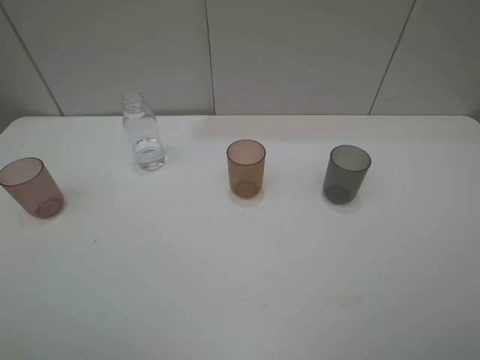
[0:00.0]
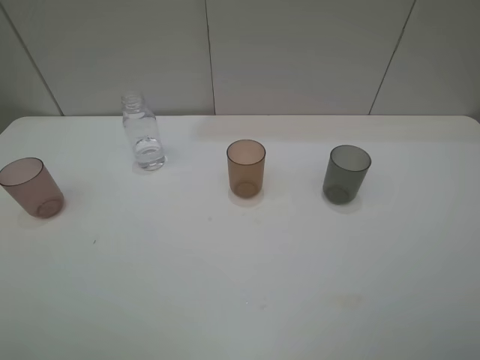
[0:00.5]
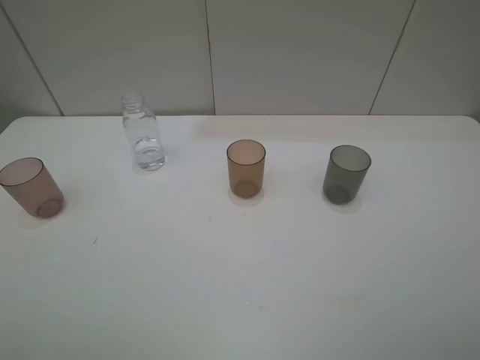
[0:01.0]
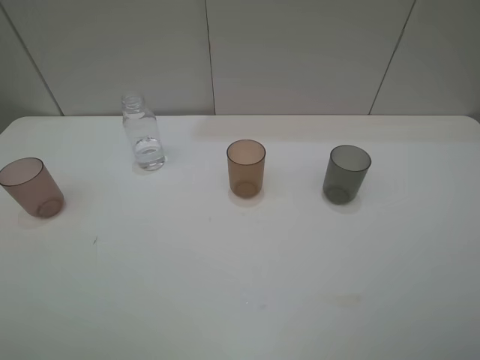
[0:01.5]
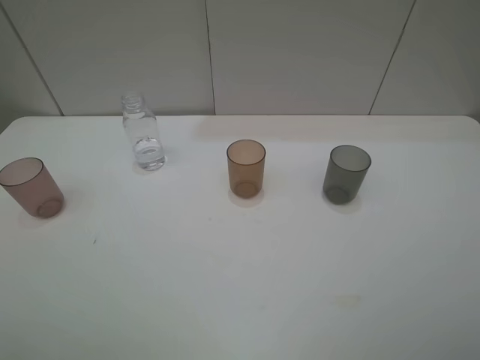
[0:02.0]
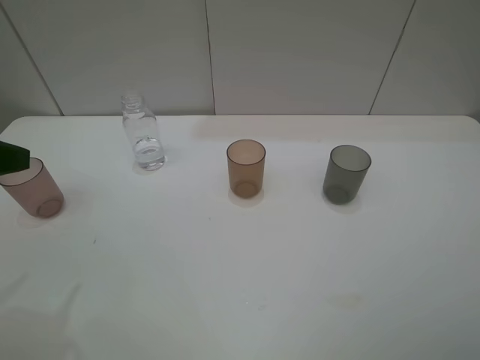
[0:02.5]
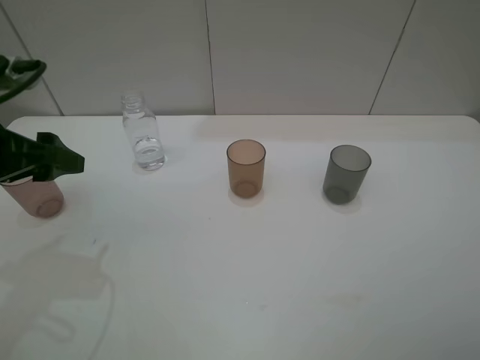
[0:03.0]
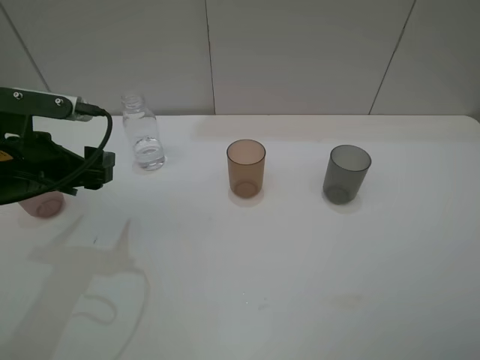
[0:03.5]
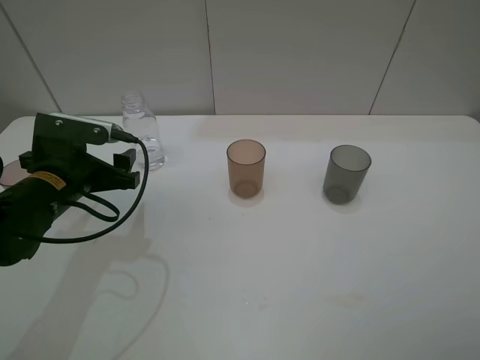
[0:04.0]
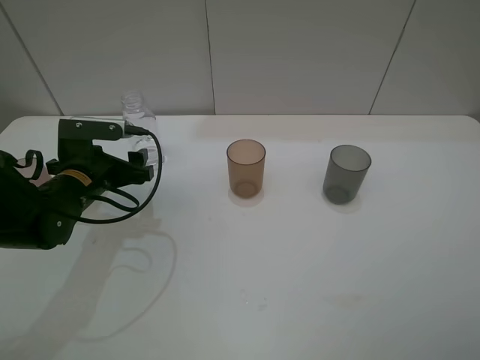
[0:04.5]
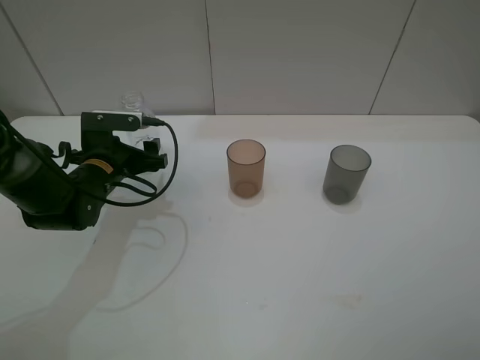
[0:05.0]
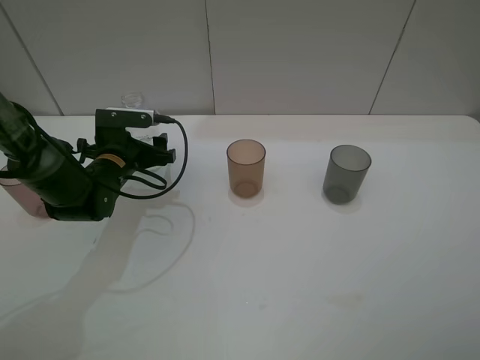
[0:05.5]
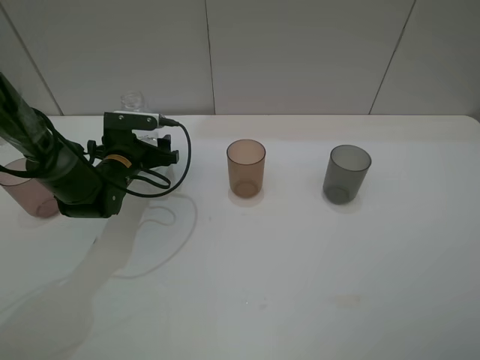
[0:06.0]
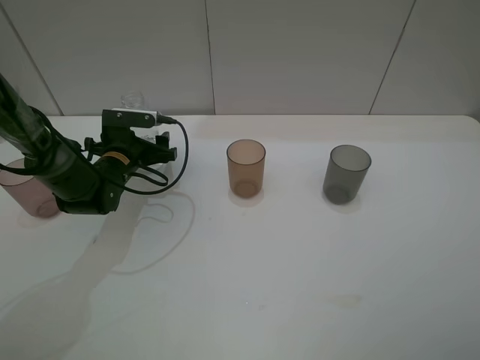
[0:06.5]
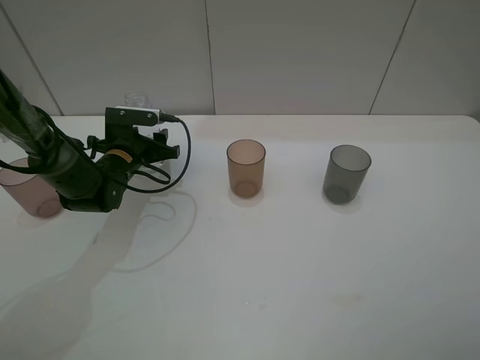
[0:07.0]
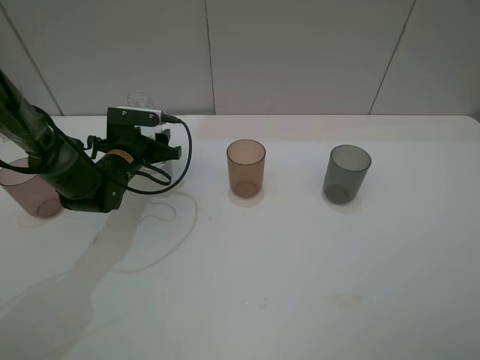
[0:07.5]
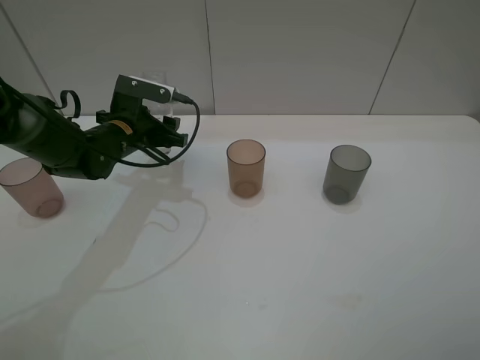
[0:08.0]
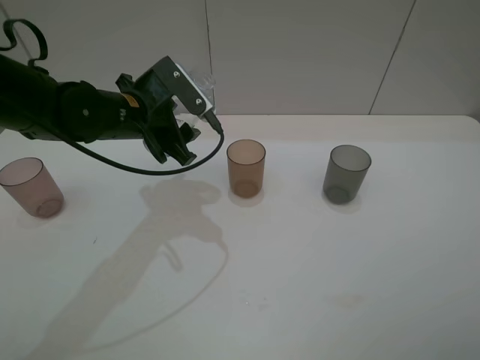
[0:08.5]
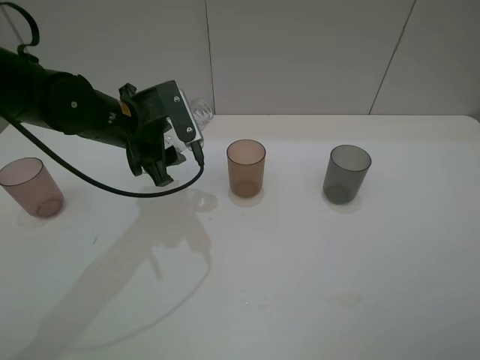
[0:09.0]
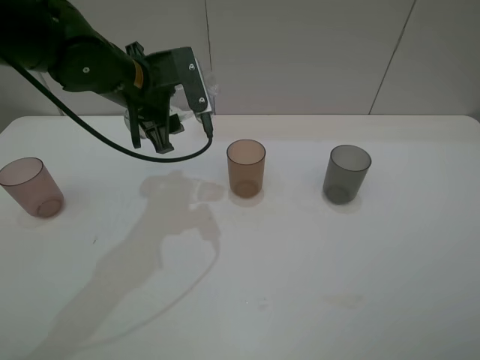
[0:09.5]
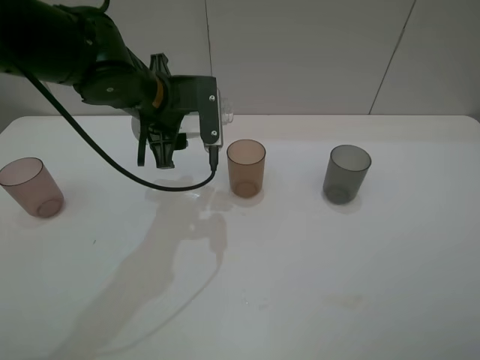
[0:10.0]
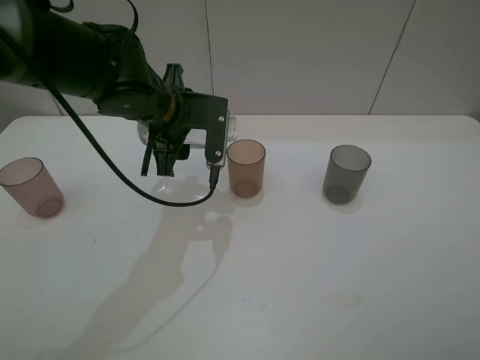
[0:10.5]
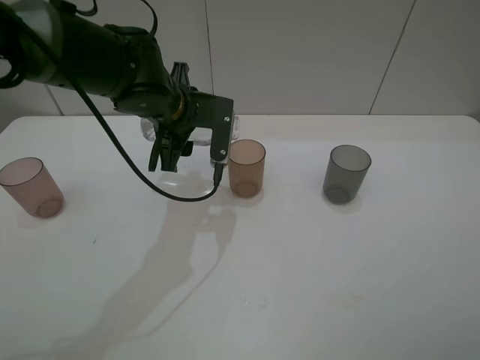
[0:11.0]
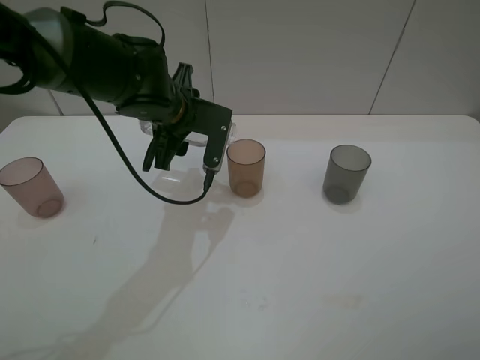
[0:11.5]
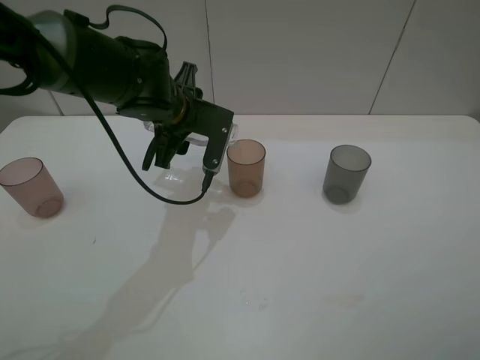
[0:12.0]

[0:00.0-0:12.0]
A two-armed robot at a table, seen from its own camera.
Task of the whole recording: pick up the bottle filled with water and pour water into the middle cup of the three cups.
Step, 0:00.0 to 0:07.0: Grasp the transparent bottle with the left gripper.
0:02.0 to 0:04.0: The left gripper moves forward and downward, roughly 30 cm.
0:04.0 to 0:06.0: The left gripper is displaced forward and downward by about 15 cm.
0:06.0 to 0:08.0: The left gripper goes approximately 5 cm upward, and closes its fingers.
0:08.0 to 0:10.0: The left gripper shifts some 10 cm upward and to the right.

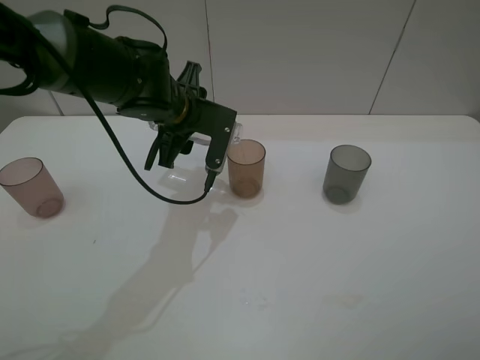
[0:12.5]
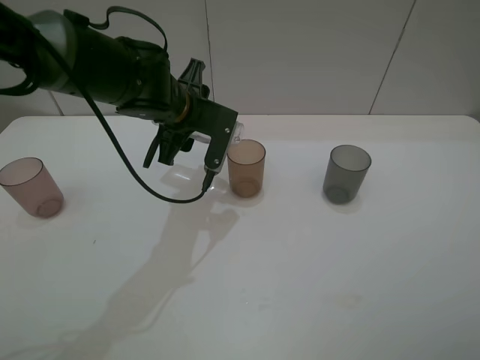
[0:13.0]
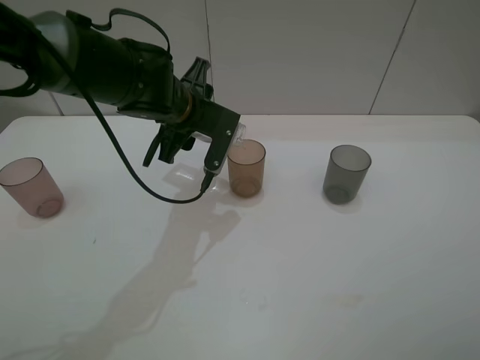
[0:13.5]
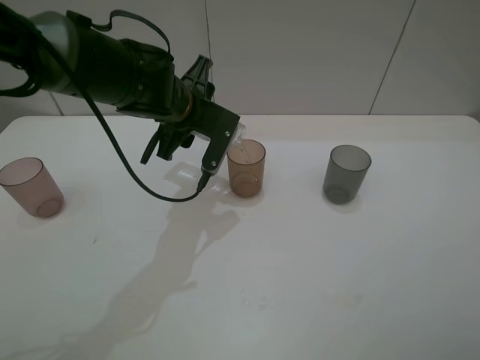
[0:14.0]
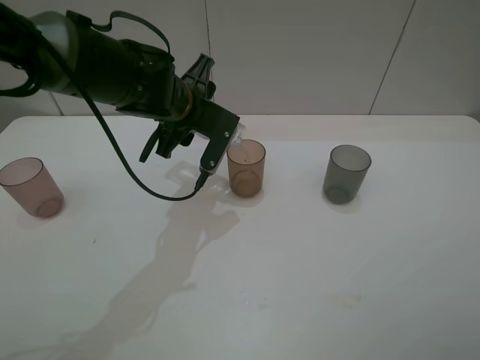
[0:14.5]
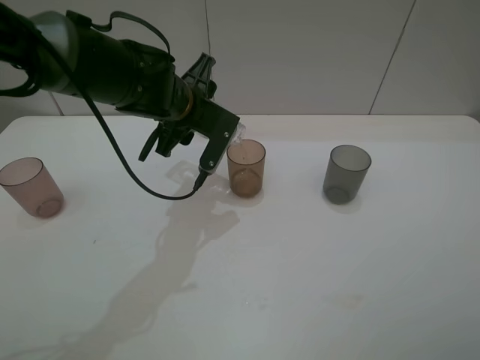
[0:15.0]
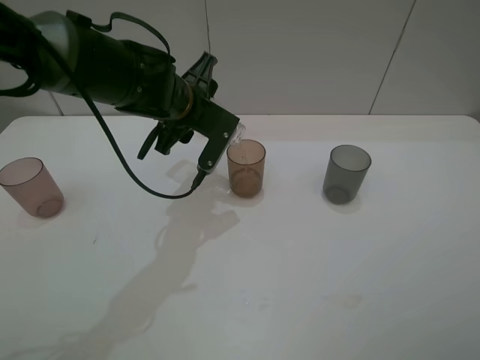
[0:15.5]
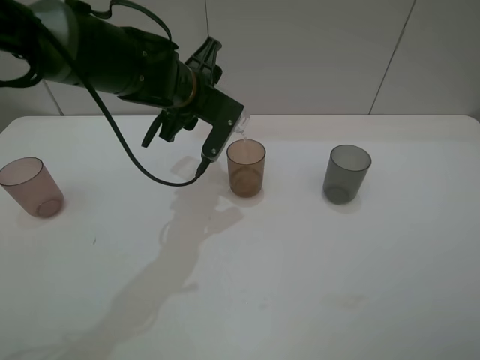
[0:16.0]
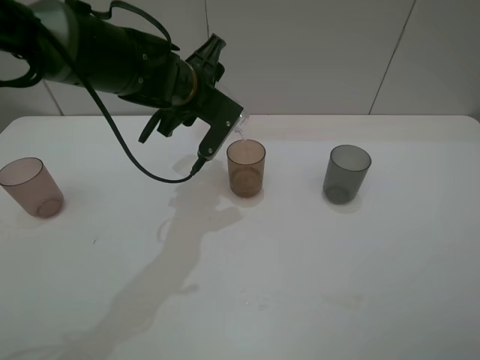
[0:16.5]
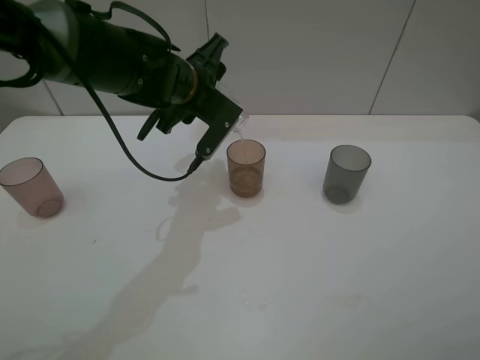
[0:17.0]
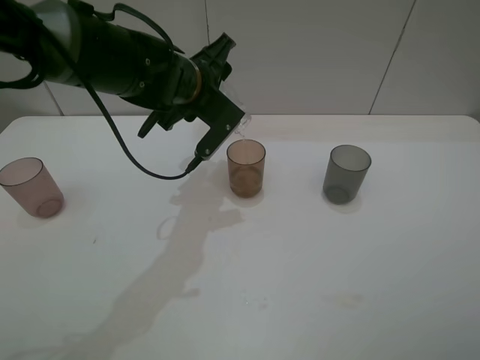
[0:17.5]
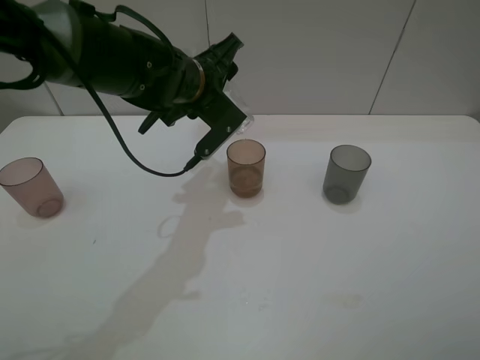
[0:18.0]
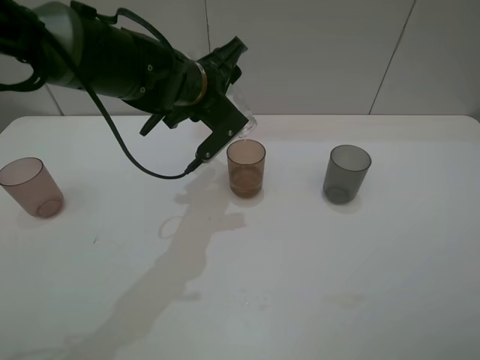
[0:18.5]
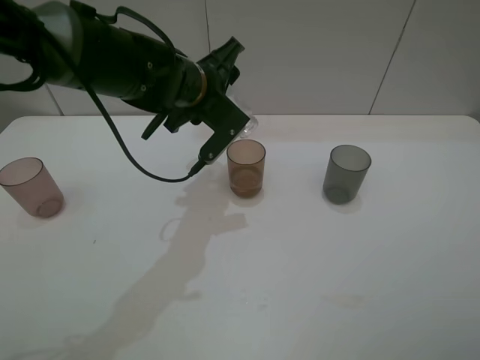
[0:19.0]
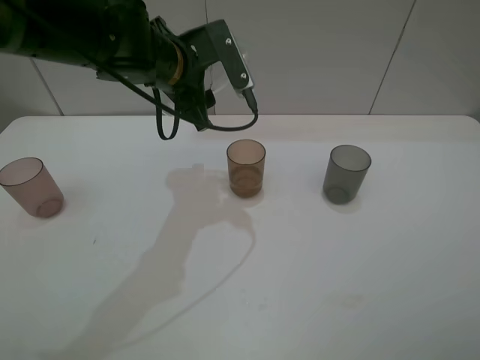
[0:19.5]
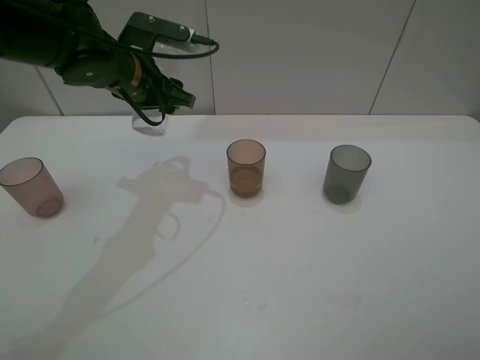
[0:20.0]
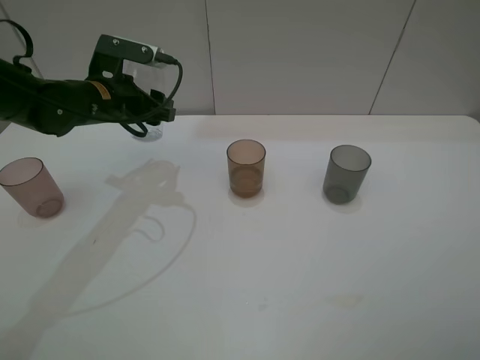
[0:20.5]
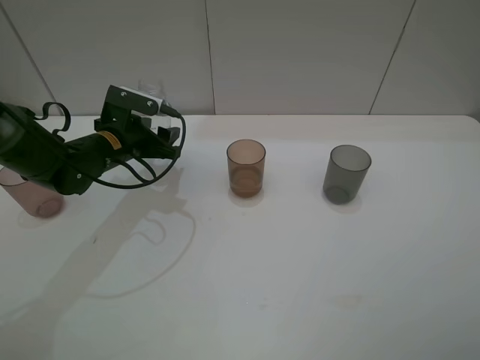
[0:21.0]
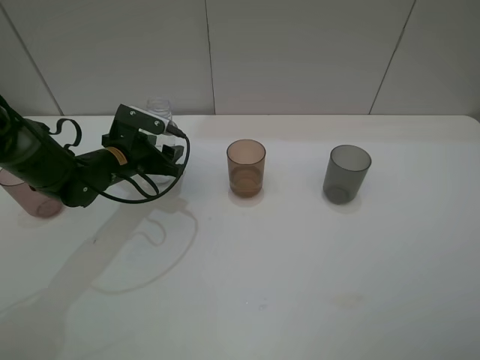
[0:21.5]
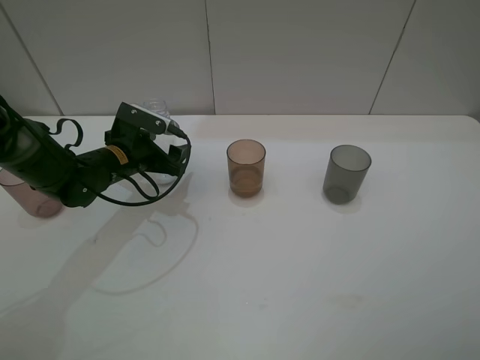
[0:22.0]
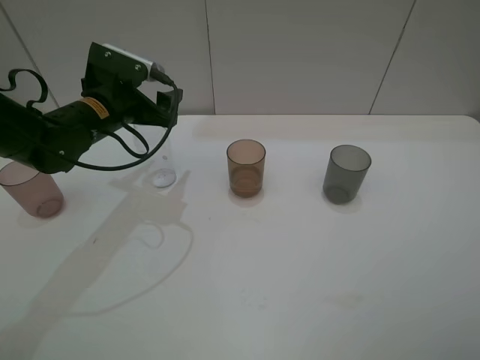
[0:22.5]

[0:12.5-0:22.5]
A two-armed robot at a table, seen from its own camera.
Task of the whole recording: pick up the bottle filled with water and pour water into the middle cup of the three cups.
Step, 0:12.5 to 0:19.0: Pour water from transparent bottle to brown cup with the left gripper.
Step, 0:19.5 to 0:22.0: Place the transparent bottle with the left gripper.
0:12.5 to 0:14.5: The grippers stay close to where they were, moving slightly.
0:14.5 to 0:16.5: The grippers make only small movements.
0:16.5 to 0:18.5: The grippers make only small movements.
0:18.5 to 0:20.5: The left gripper moves to the left, some 15 cm.
0:20.5 to 0:22.5: The left gripper goes downward and returns, about 10 cm each way, and opens.

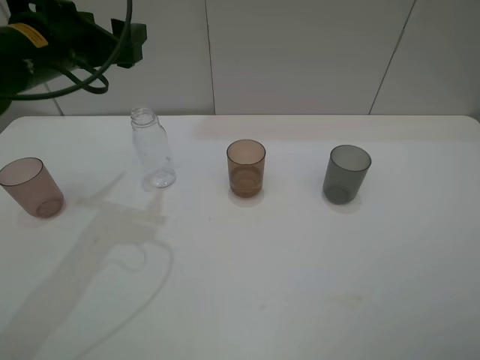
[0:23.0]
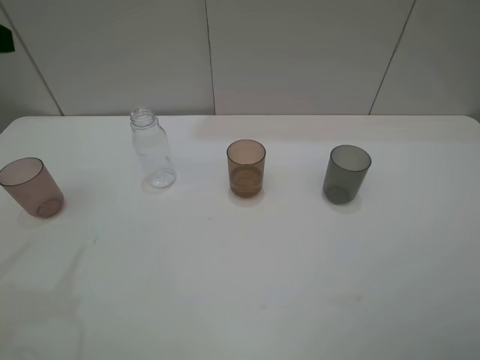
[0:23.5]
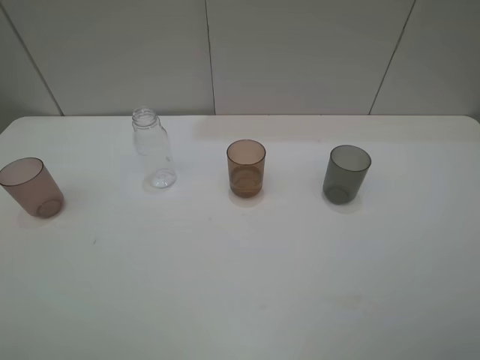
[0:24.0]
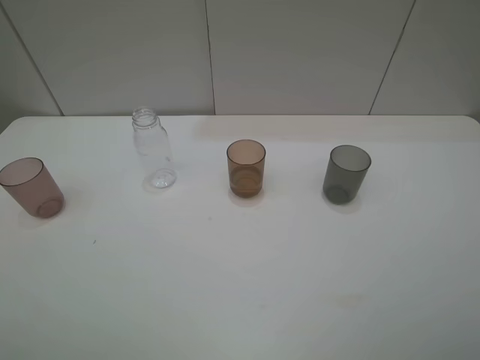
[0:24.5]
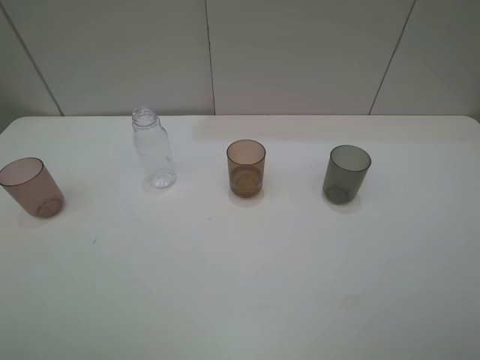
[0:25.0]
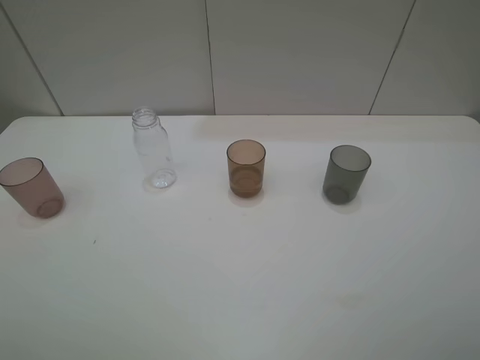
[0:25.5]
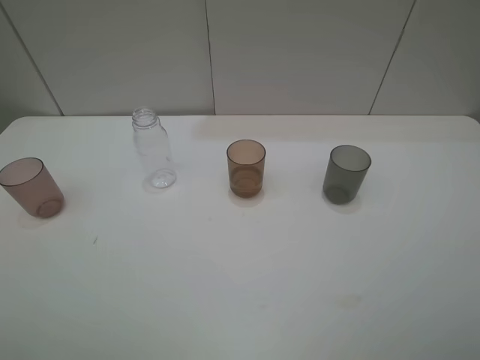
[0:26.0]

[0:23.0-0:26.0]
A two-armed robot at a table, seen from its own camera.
Task of the whole recording: pick up the bottle filled with water and pour water into the middle cup of the three cups.
0:23.0 to 0:24.5: The left gripper is displaced backward by approximately 30 cm.
0:24.5 to 0:26.0: Both grippers stay about where they are.
